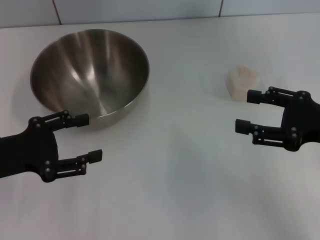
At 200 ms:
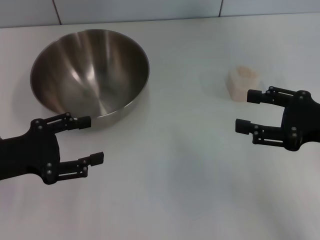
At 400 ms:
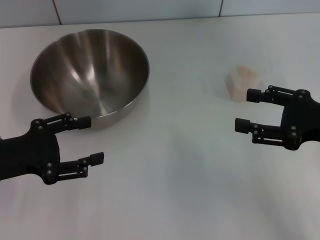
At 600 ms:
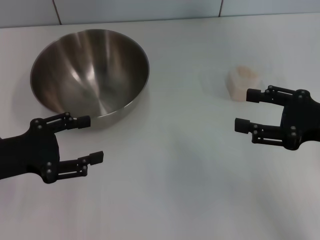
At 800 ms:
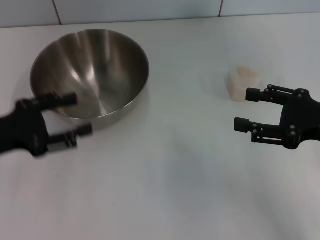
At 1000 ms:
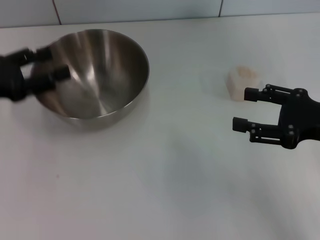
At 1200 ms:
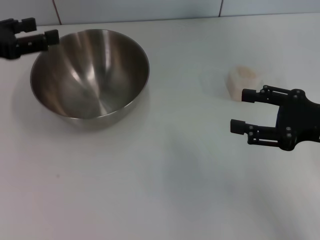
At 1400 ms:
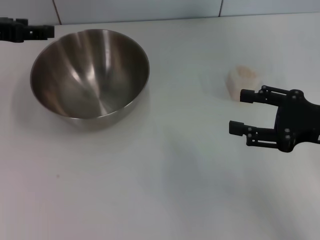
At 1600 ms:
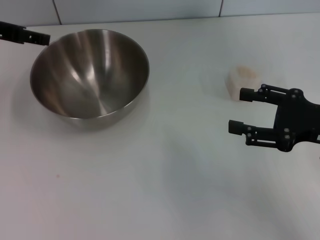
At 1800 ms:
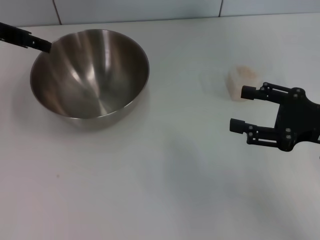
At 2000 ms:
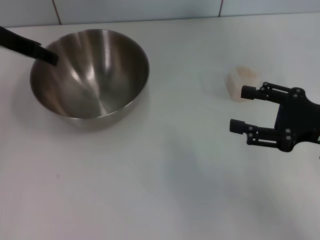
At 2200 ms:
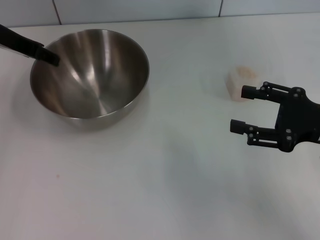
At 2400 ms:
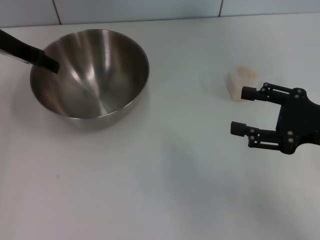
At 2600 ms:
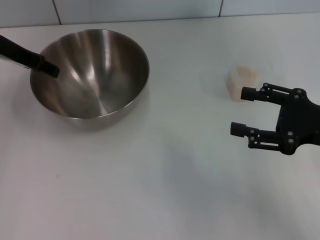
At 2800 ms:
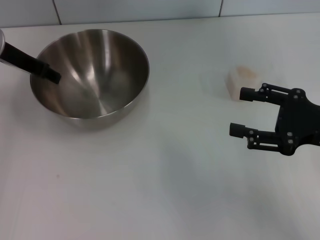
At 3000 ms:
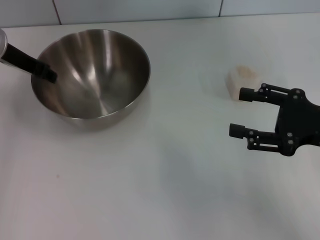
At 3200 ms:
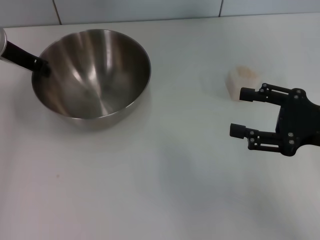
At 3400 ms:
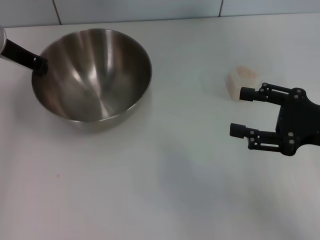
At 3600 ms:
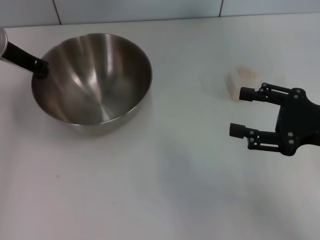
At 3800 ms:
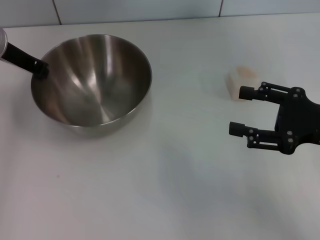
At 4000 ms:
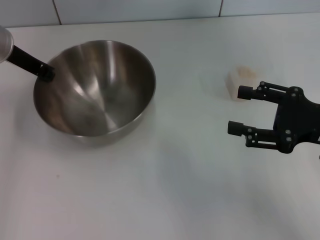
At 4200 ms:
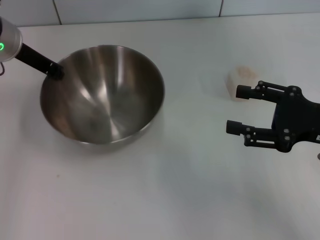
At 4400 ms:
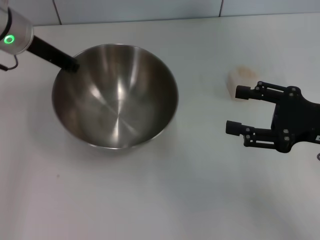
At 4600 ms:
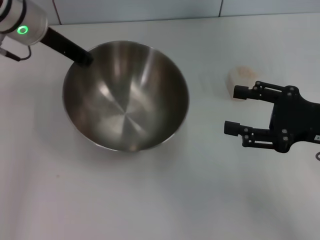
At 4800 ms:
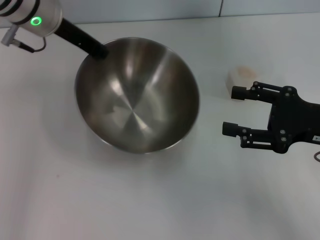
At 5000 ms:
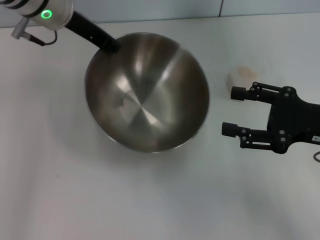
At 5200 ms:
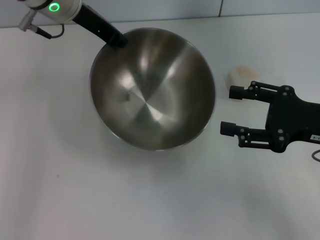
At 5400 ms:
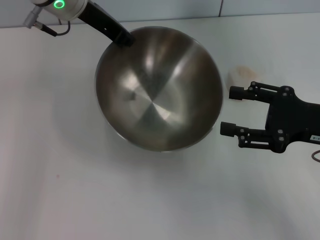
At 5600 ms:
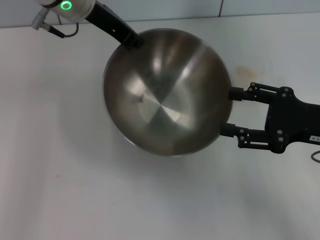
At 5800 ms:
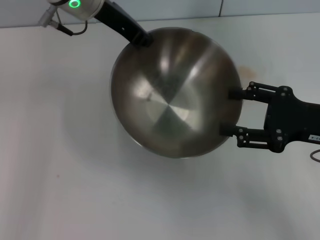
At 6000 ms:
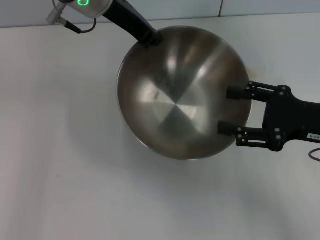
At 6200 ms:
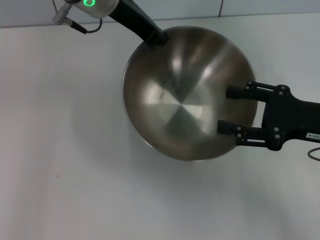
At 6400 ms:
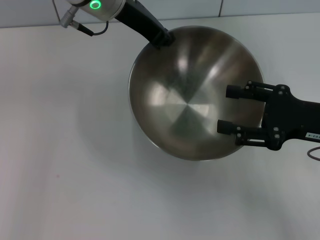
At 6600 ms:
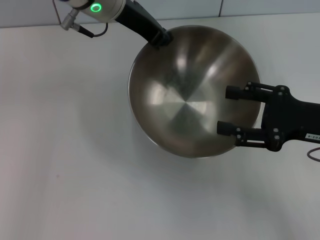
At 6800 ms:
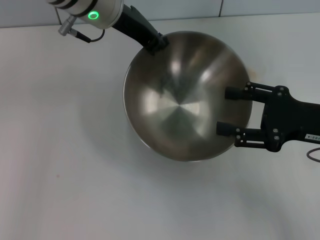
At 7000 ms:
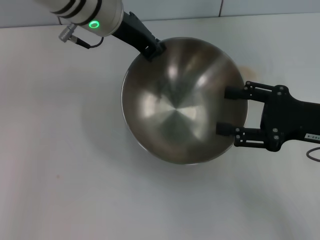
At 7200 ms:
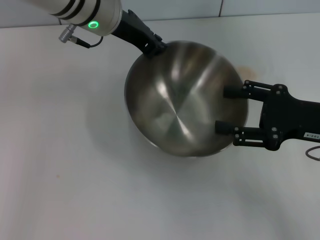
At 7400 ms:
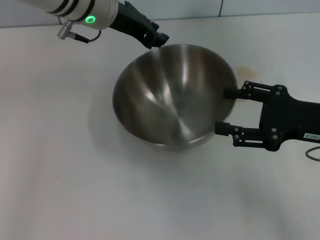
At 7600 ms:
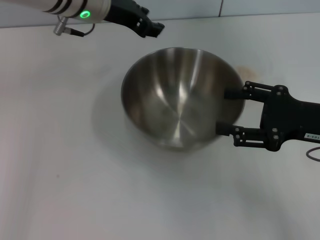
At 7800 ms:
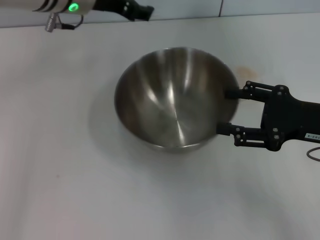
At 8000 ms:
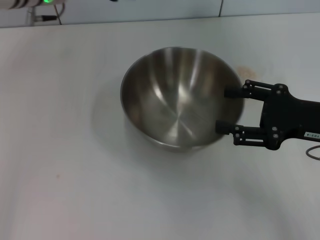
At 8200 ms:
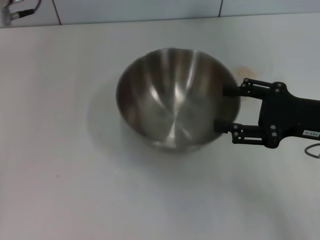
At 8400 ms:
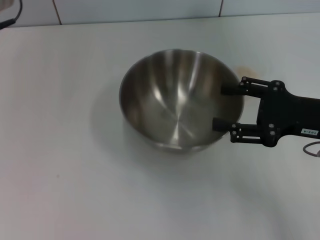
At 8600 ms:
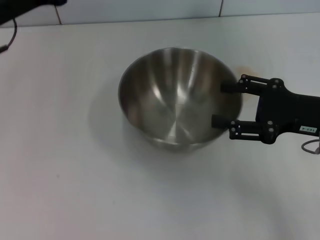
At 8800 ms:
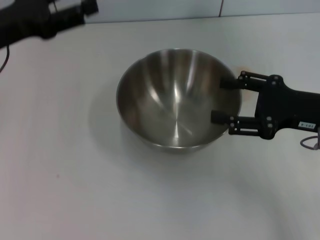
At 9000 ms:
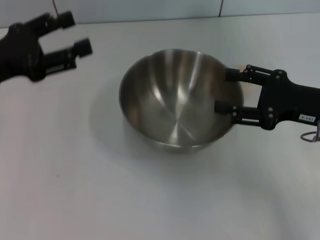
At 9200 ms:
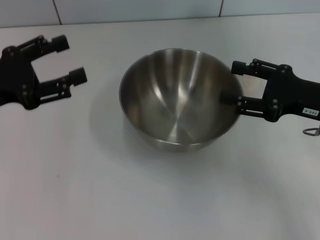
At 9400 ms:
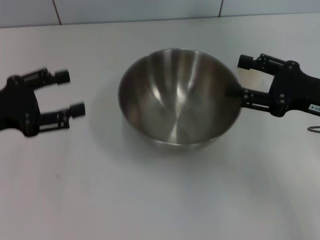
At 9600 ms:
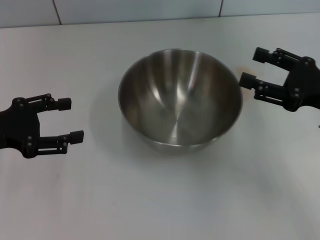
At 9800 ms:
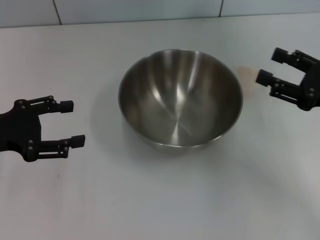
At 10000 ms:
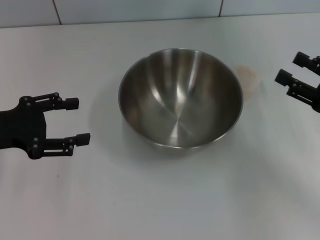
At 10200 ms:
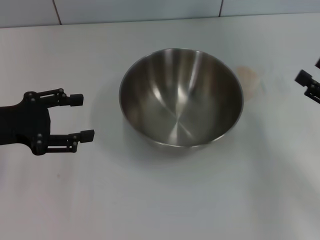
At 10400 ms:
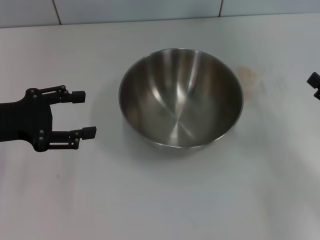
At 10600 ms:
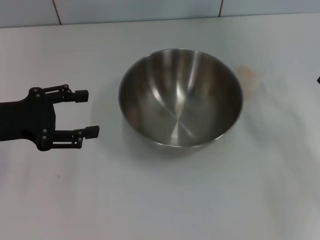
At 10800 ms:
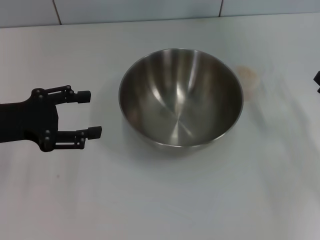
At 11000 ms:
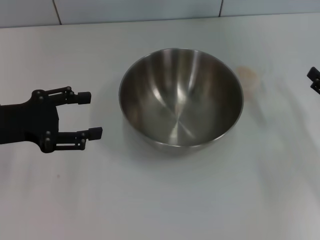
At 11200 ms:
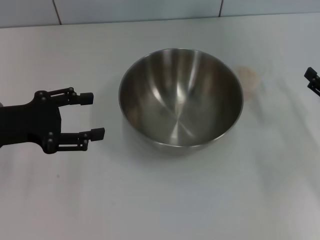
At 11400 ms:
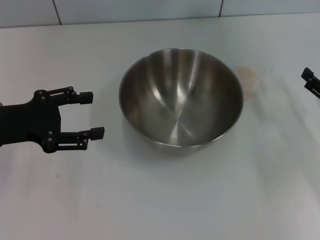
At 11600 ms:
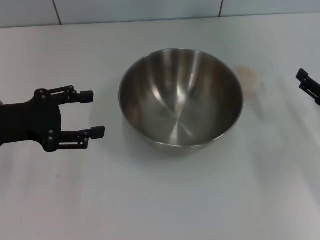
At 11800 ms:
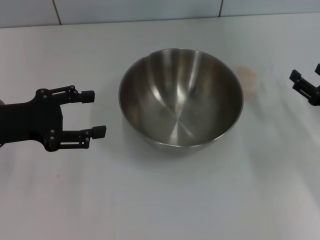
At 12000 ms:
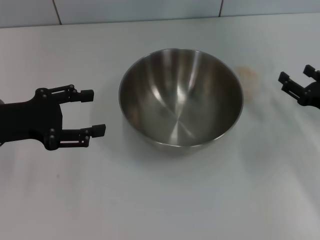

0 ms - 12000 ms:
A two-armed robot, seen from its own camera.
Task of the whole recording: Place the bowl in the middle of the table with one hand and pour the rice from the grain cup into it with the other hand.
Step, 0 ms - 4800 ms: Pick up the bowl with the left gripper.
Step, 5000 ms - 8200 ms: Place the bowl in the center of view with the left gripper.
0 ms - 1600 ms: The left gripper shifts some 20 cm forward and upward.
1600 ms - 3000 ms: The left gripper changes place by approximately 5 cm.
3000 ms - 4400 ms: The left gripper closes.
4400 ms - 6000 ms: The left gripper shifts about 10 cm to the right and upward.
6000 ms - 7600 ms: There are only small adjustments of the grippers.
7600 ms - 9000 ms: The left gripper moves to the left and backward, approximately 20 cm, and opens its fingers.
9000 ms - 10400 ms: The right gripper is displaced to the right, downward and backward by some 10 cm.
10400 ms - 12000 ms: The right gripper is displaced forward by about 5 cm.

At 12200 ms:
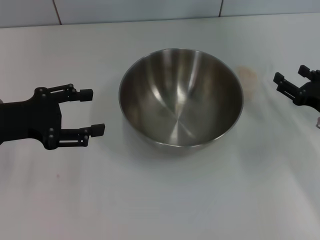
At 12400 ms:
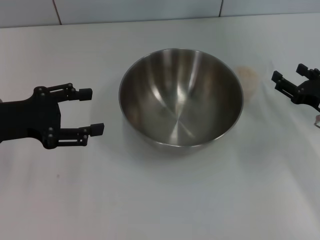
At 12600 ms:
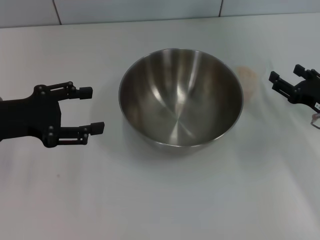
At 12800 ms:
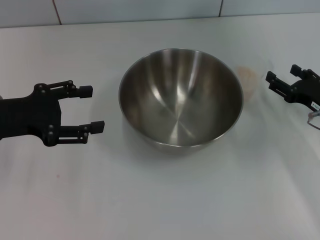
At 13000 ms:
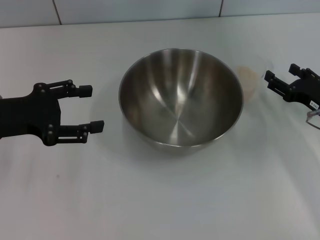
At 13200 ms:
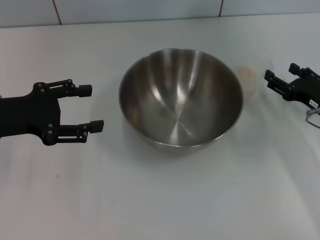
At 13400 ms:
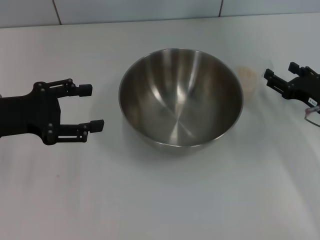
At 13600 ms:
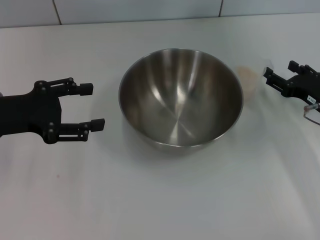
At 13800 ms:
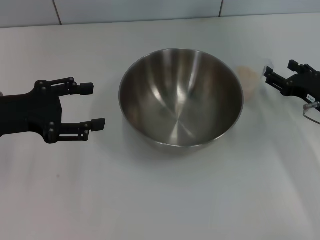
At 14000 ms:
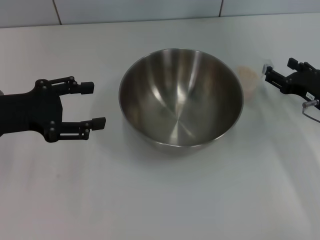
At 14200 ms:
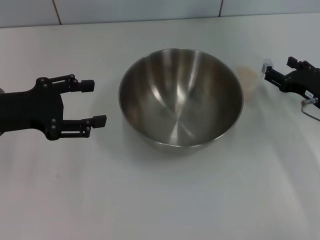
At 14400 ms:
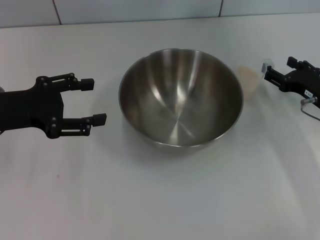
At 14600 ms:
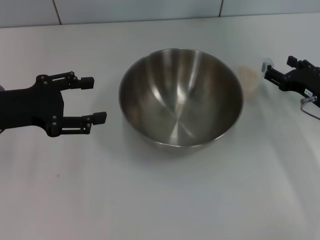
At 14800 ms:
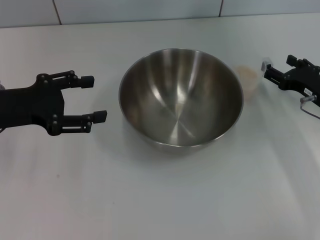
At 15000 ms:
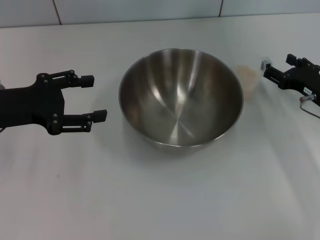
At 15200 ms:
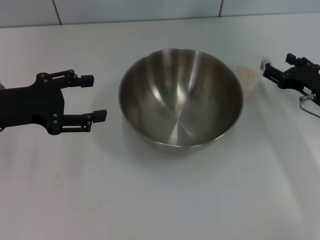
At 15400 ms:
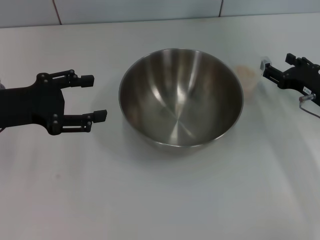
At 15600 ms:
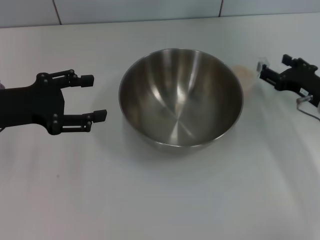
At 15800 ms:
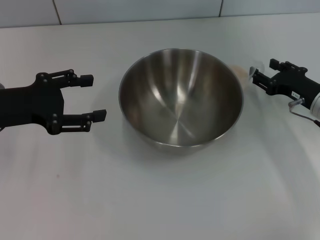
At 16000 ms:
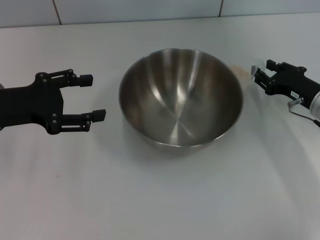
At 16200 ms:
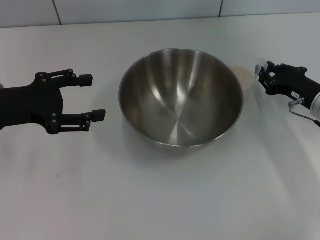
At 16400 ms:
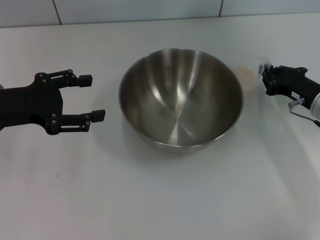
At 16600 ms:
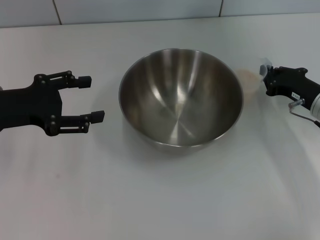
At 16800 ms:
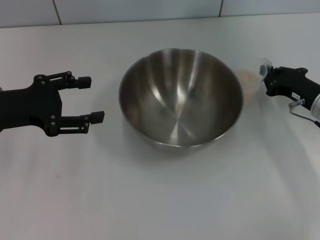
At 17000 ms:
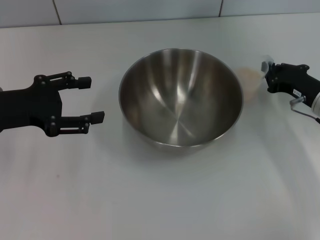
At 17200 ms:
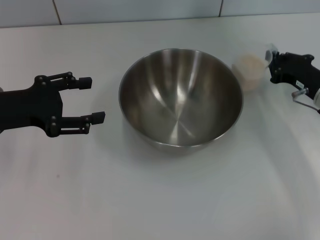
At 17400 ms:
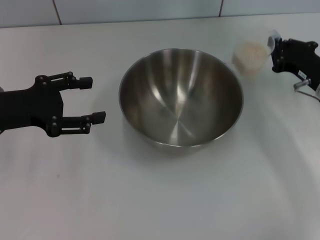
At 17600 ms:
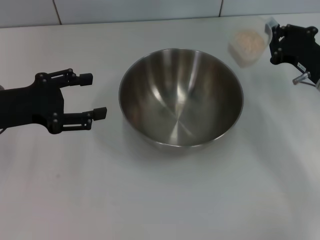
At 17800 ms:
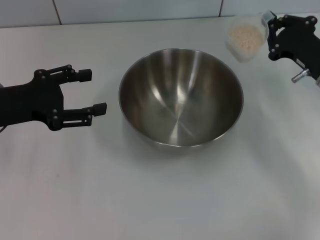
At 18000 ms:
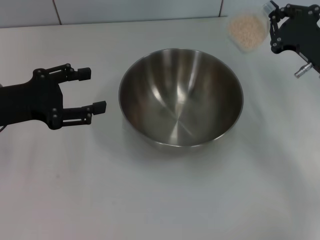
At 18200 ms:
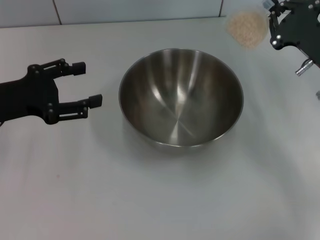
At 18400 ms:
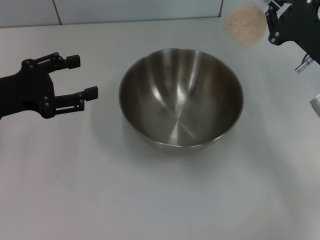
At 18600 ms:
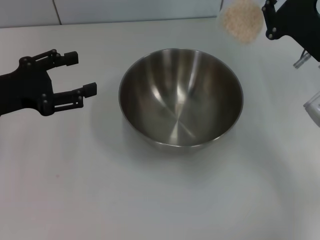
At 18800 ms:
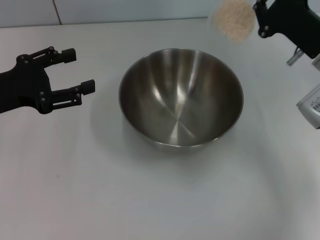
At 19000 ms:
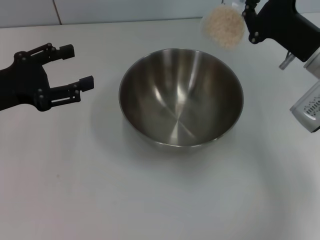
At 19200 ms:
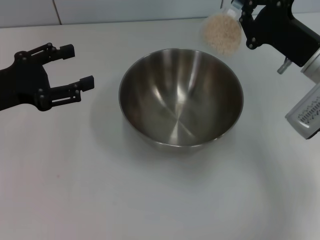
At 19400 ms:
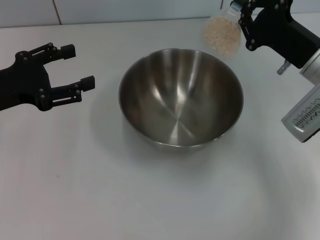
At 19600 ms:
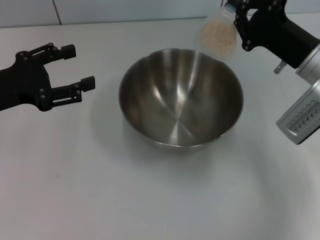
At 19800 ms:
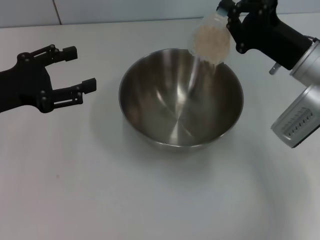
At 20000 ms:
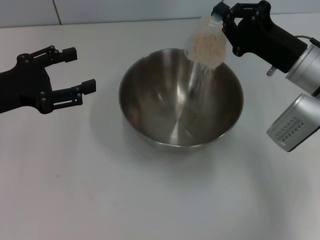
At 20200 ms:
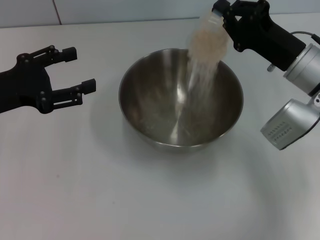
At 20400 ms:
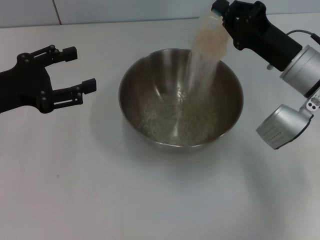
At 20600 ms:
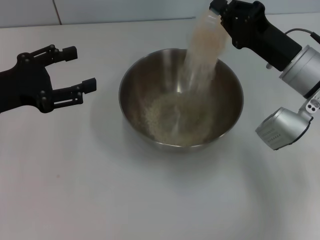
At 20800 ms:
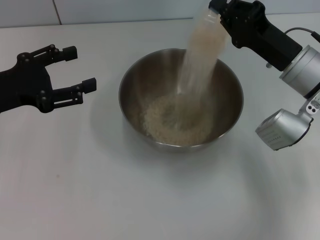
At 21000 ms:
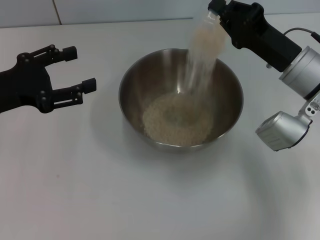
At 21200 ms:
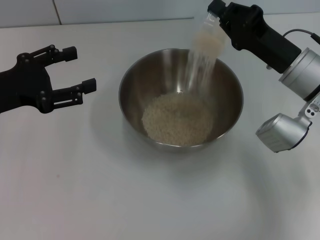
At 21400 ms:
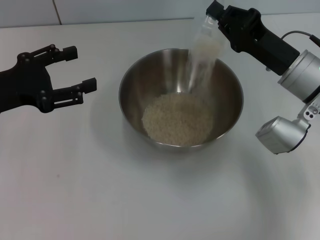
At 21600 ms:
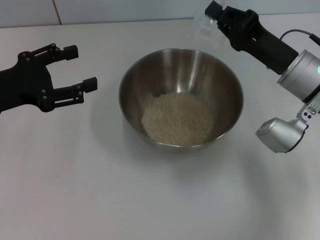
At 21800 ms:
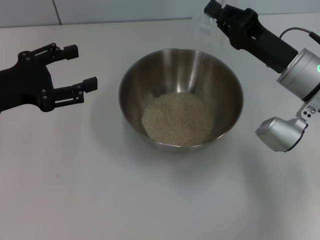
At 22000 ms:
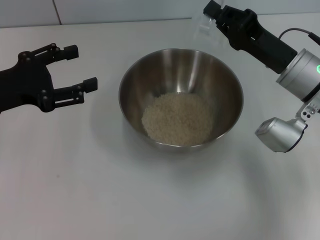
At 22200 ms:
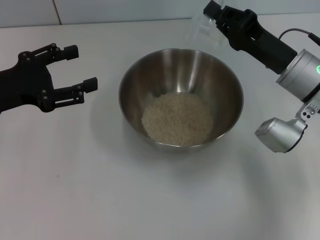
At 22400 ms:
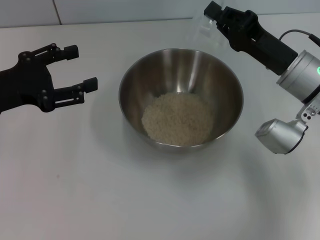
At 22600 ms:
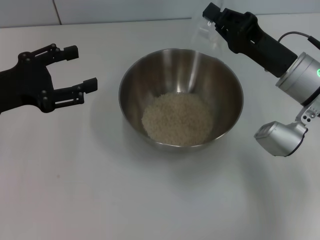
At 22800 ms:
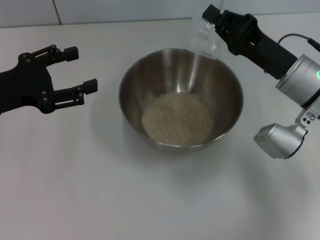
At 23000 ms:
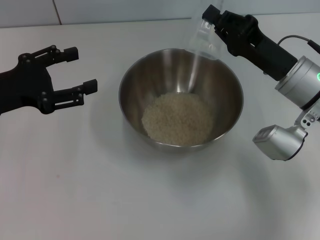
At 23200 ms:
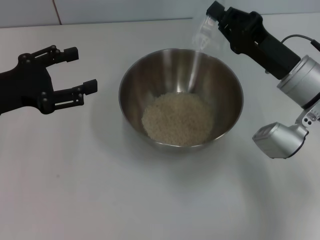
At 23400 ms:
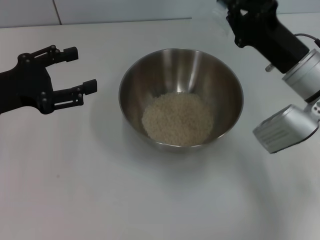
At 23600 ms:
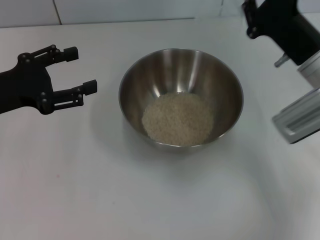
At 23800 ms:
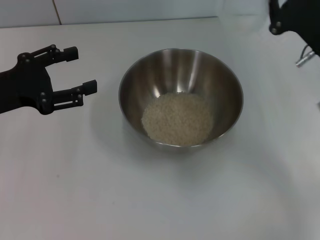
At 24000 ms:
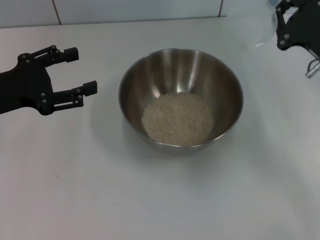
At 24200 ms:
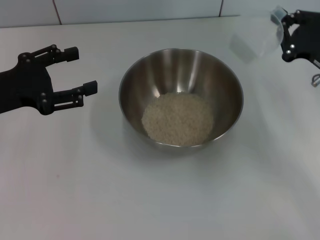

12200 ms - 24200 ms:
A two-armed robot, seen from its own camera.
Task of the whole recording: Place the bowl in the middle of the table with one hand and pour the rice from the grain cup into it with the other hand.
Step, 12200 ms - 17800 ms: Pick up the cup with rice in it with the right gripper.
Step, 18000 ms - 24000 ms: Pour the rice from the cup into the bowl with the right gripper.
12200 ms - 15200 ms: The grippers make only small movements.
15200 ms - 16600 ms: The right gripper closes up.
16600 ms - 18200 ms: The right gripper goes roughly 5 cm upward.
21200 ms - 22600 ms: The grippers stay close to where they were, moving slightly.
22600 ms - 24200 ms: The right gripper goes approximately 10 cm to the right.
